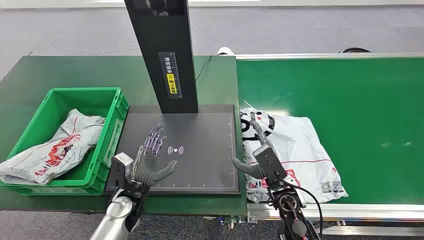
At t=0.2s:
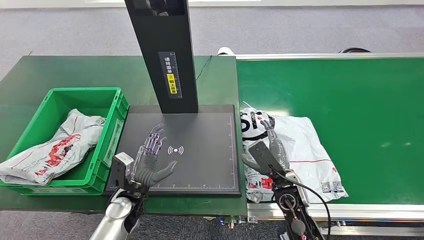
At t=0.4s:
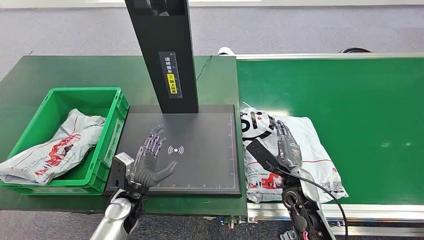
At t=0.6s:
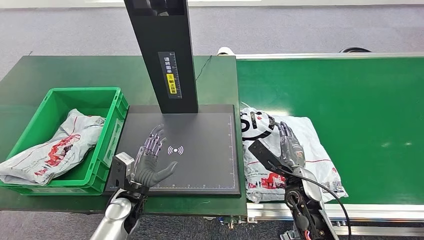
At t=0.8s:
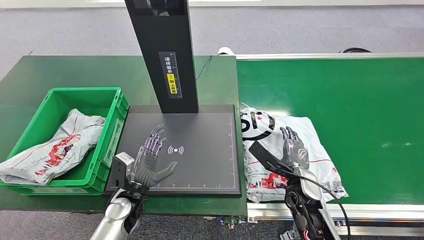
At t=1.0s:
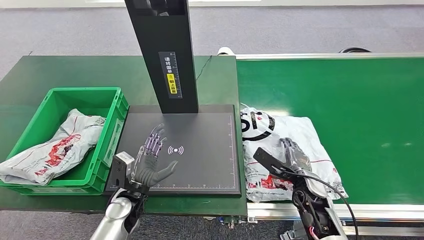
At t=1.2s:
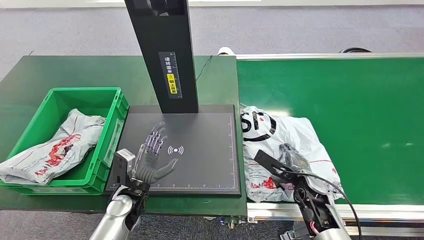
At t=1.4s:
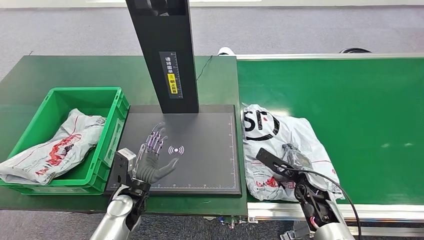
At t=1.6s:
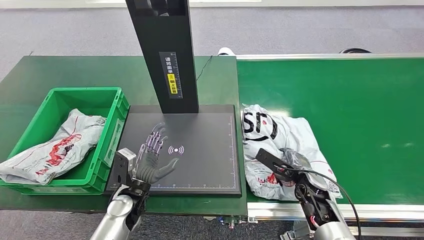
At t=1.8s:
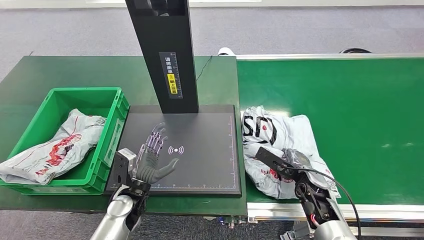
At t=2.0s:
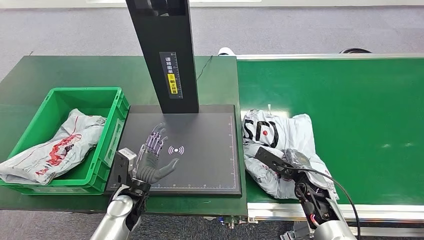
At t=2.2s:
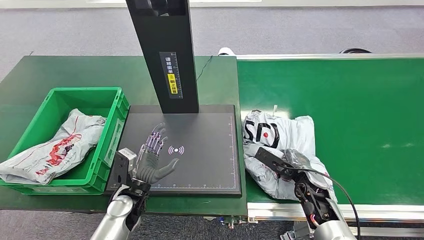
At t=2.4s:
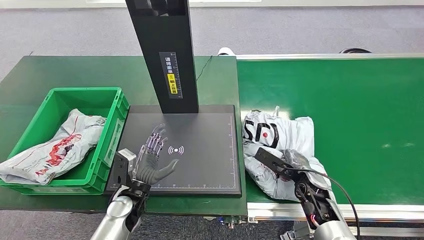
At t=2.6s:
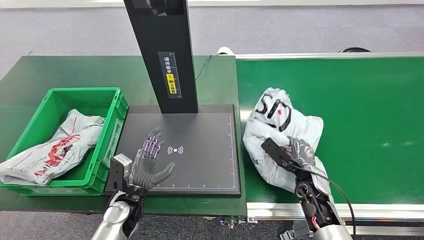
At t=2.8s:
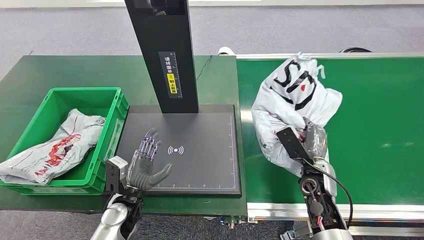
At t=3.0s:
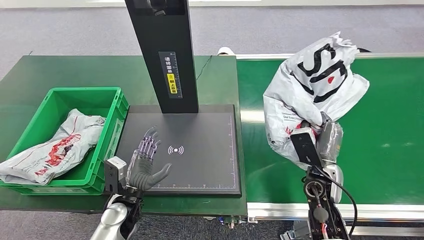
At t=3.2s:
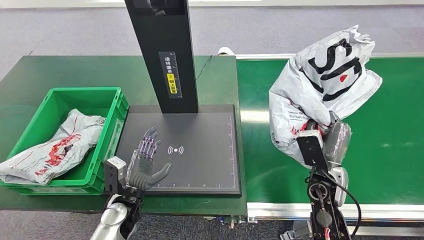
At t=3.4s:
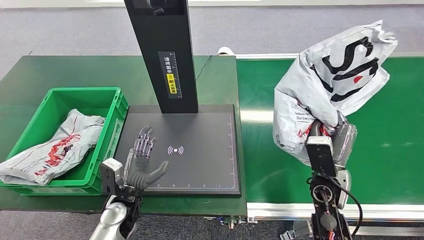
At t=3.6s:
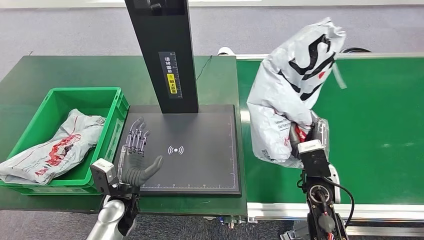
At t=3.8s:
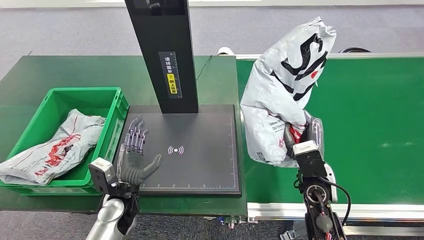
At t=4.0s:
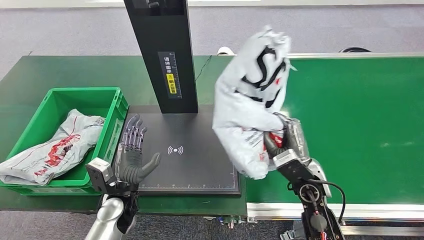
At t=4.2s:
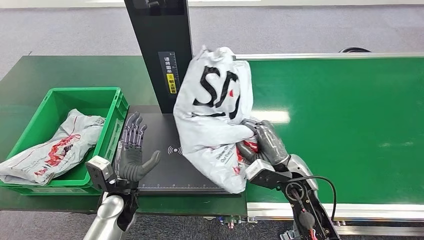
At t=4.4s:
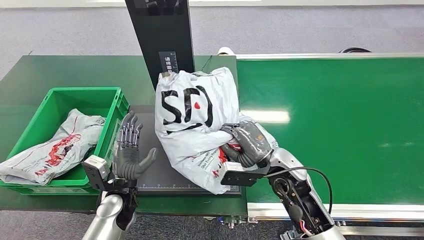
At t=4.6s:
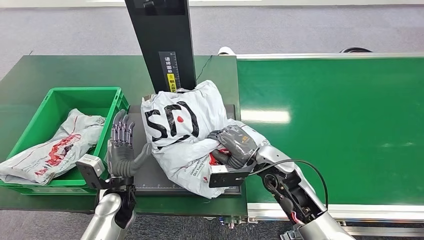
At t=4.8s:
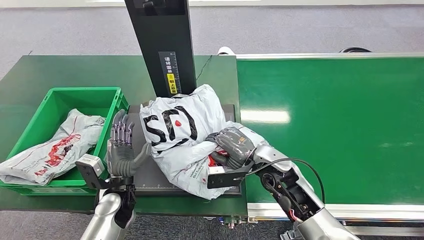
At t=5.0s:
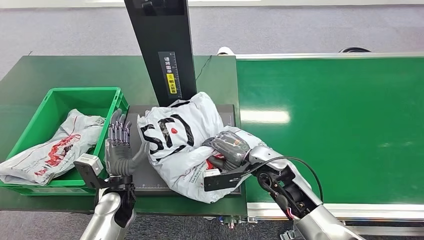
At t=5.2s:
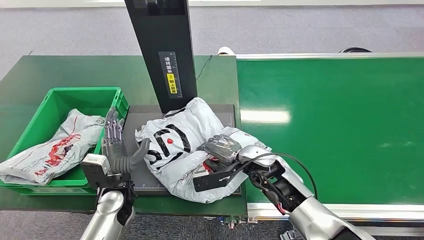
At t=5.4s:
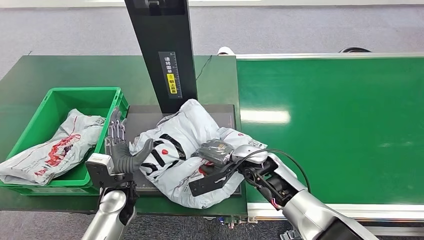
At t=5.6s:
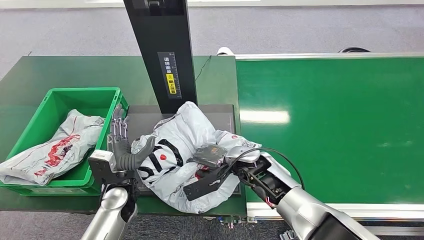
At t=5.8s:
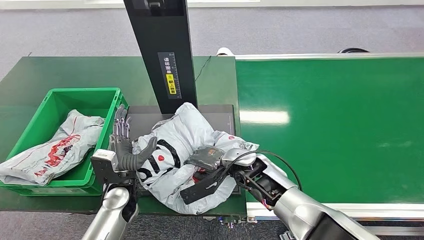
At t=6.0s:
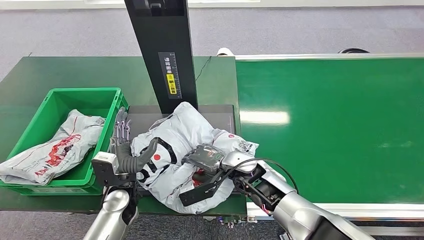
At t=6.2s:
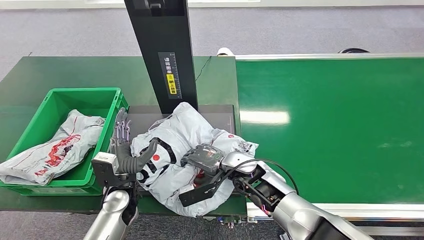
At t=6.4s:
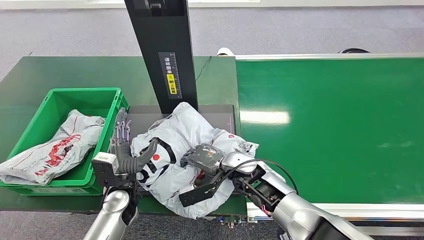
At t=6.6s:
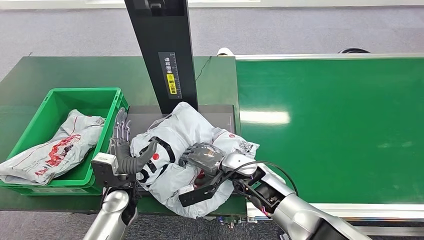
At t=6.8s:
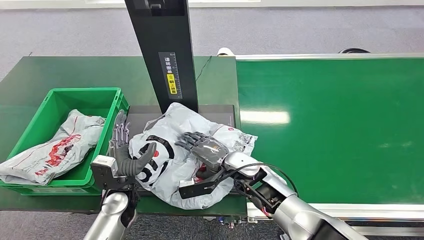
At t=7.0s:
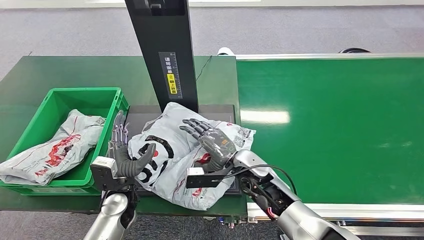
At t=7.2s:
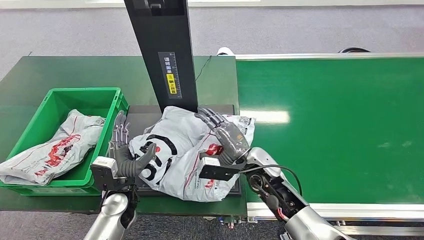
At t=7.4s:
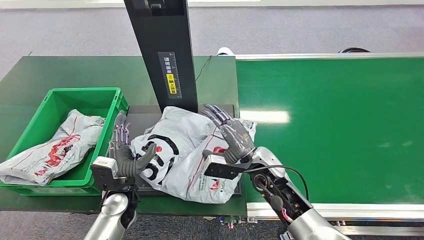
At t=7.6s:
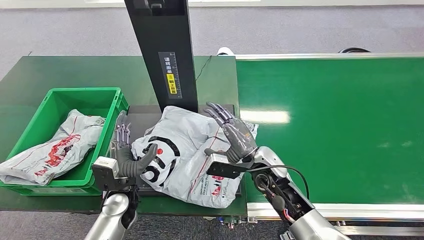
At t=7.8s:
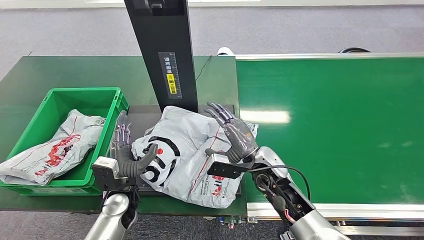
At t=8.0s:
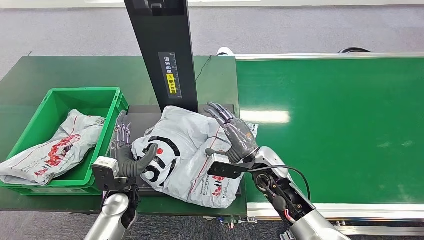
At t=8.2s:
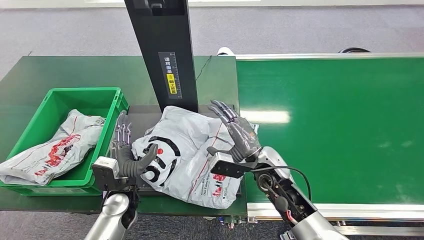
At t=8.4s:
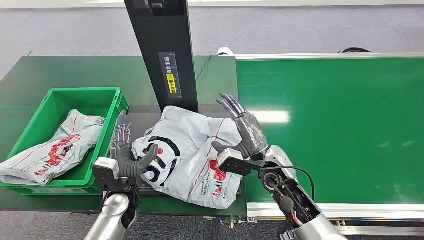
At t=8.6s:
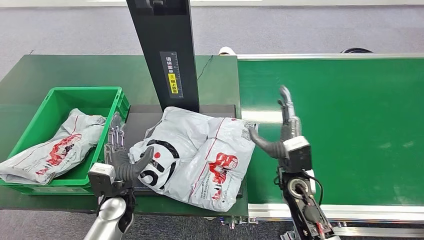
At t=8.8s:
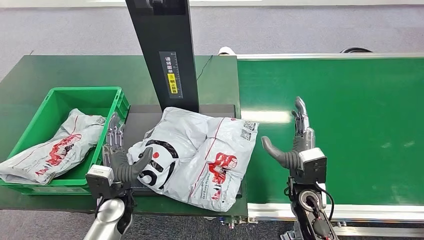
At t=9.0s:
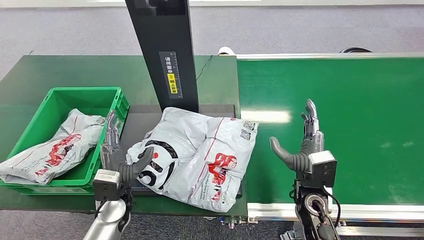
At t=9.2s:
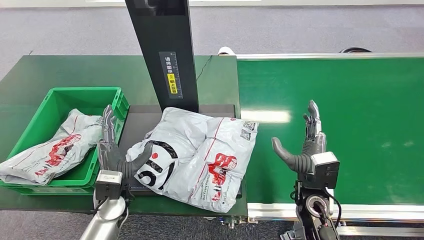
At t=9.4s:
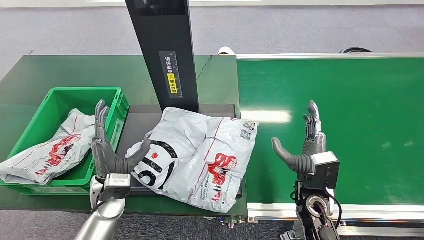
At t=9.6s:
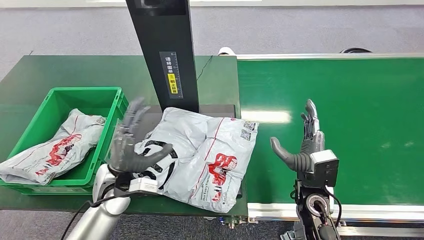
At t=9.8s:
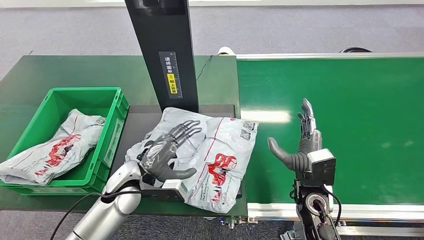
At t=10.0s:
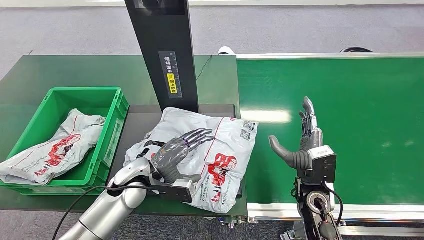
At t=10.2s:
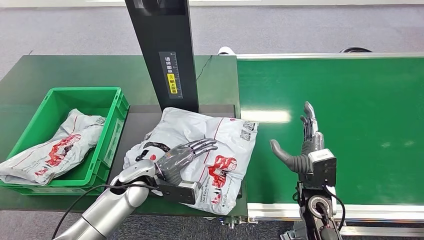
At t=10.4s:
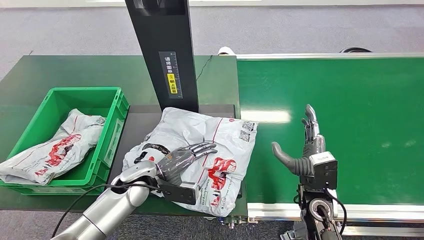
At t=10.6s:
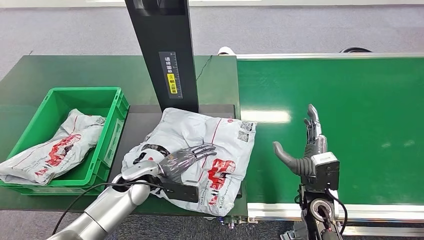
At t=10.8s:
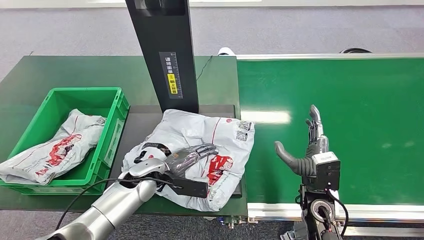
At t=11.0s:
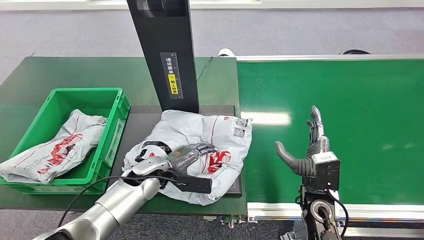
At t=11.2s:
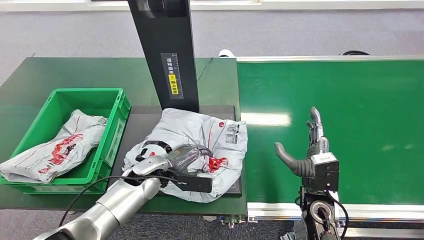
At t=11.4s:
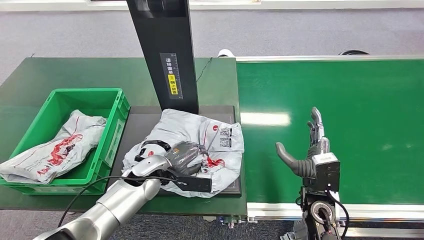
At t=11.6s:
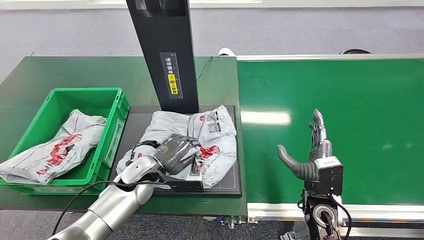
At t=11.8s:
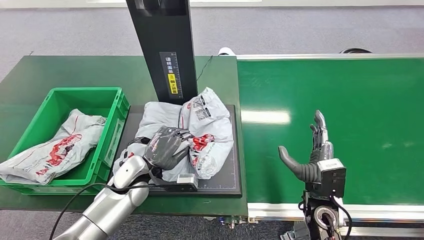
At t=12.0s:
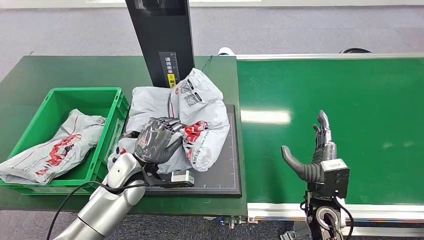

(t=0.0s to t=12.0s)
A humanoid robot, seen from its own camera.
Step, t=0.0s - t=3.2s: Pick up the package from the conveyor belt.
Step, t=3.4s - t=8.6s: Place the package onto the inbound machine.
t=1.6s - t=3.0s: The right hand moves upward, some 5 cm.
t=7.6s - t=9.0s: The right hand moves to the right and backward, some 10 cm.
t=9.0s - t=10.4s: The left hand heads forward, covering some 5 cm.

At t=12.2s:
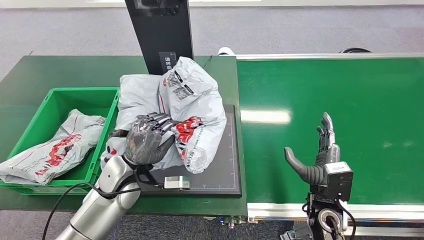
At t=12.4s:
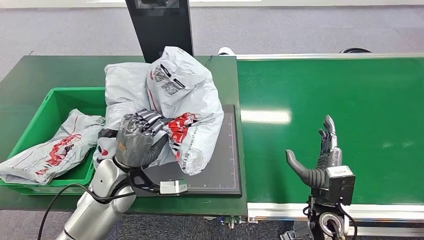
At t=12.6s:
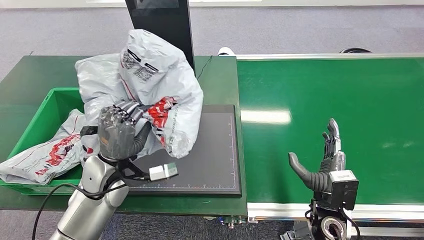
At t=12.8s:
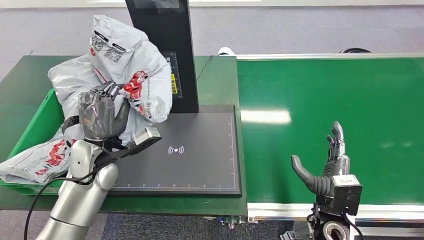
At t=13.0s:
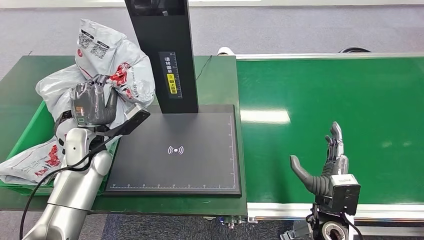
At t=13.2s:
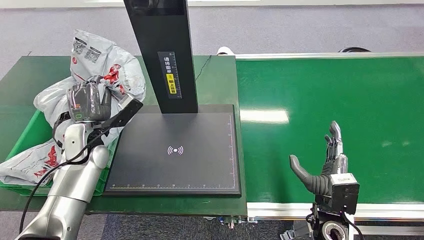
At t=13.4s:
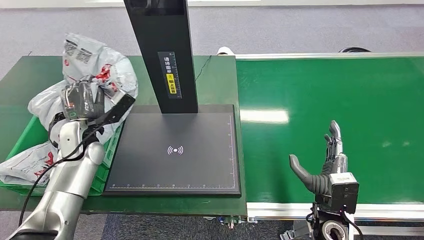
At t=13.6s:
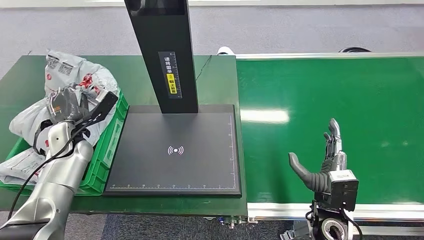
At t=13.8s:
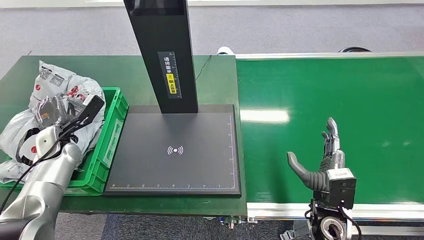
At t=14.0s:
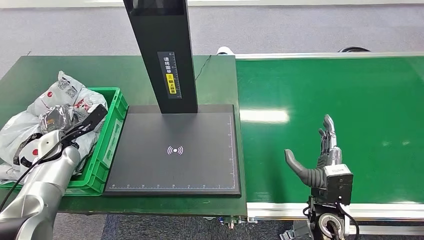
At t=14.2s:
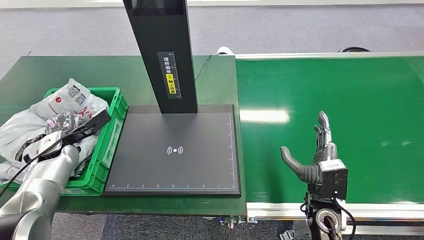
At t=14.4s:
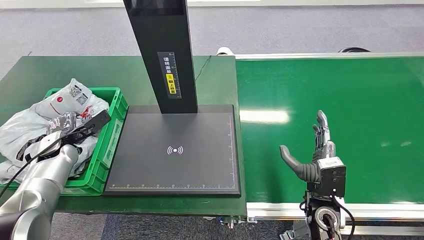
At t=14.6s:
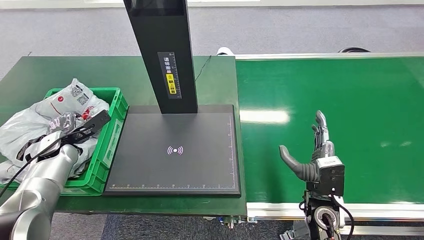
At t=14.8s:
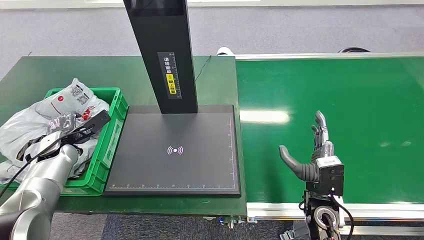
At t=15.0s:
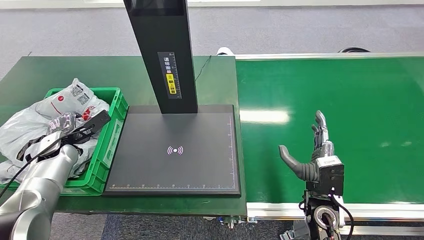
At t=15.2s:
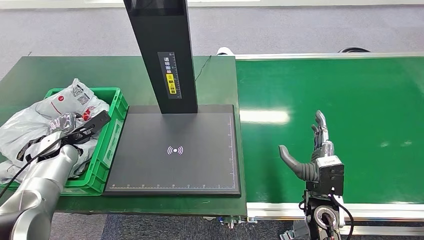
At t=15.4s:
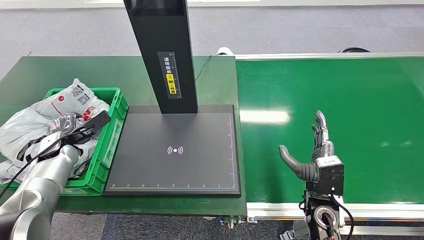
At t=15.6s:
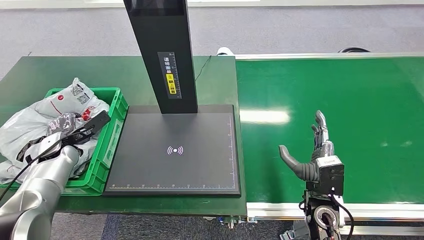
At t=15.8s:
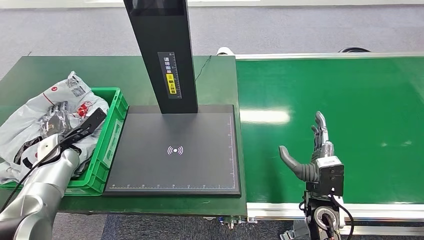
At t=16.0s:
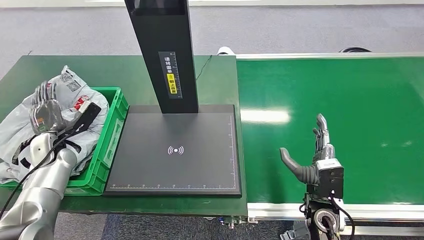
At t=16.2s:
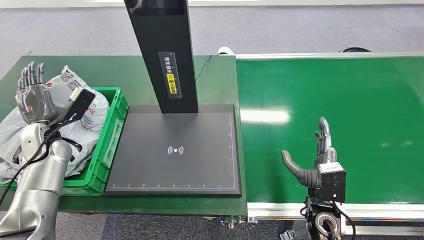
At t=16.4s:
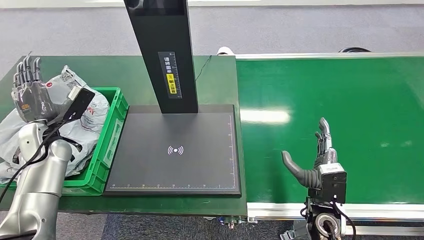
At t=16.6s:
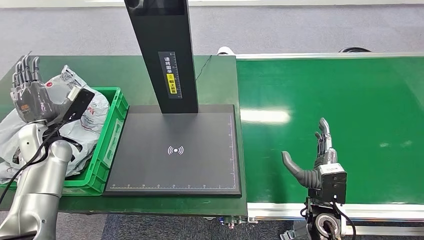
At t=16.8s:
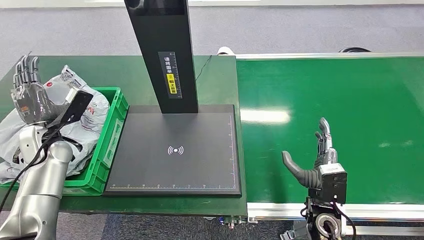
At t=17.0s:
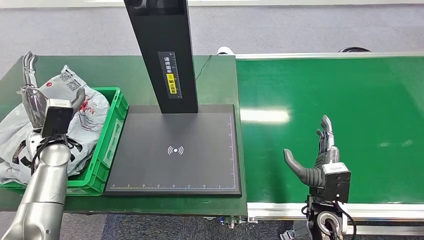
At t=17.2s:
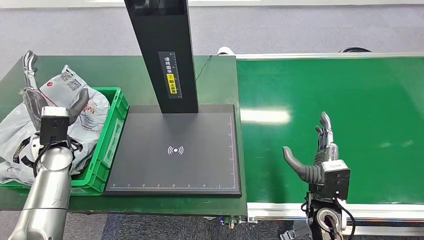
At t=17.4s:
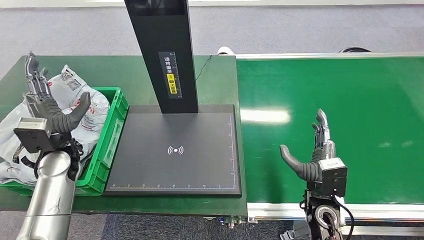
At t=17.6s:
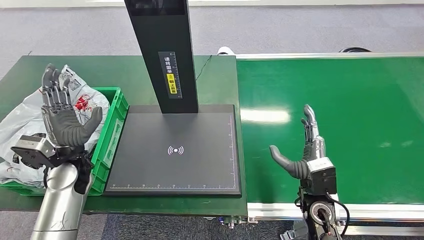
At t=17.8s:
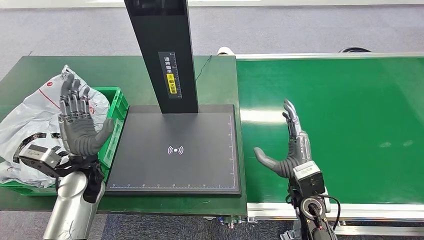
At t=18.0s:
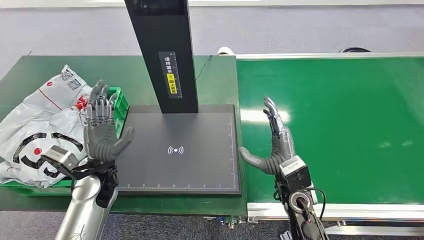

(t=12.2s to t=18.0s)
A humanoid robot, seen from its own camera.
Step, t=13.0s - t=17.8s: Place the package into the parcel locker.
t=13.6s - t=15.0s: The left hand moves to the left, about 5 cm.
t=15.0s - t=16.6s: The left hand heads upward, covering roughly 5 cm.
t=16.6s - t=18.0s: The right hand goes roughly 5 cm to the left. The left hand heads to the right and backward, covering roughly 15 cm.
